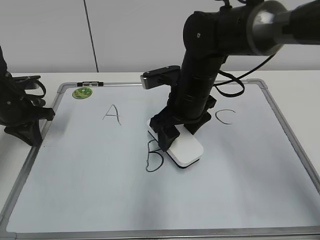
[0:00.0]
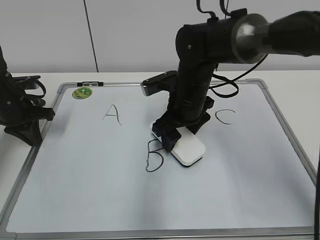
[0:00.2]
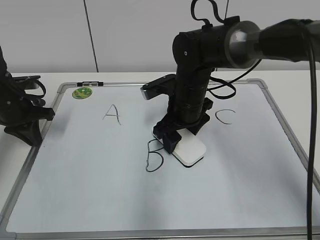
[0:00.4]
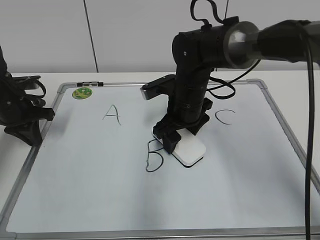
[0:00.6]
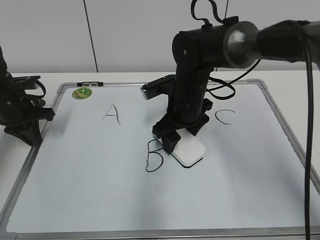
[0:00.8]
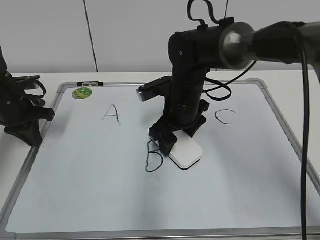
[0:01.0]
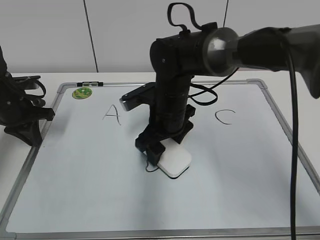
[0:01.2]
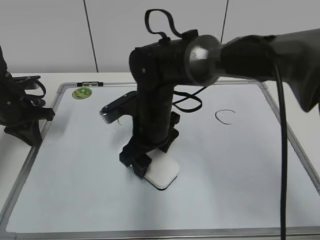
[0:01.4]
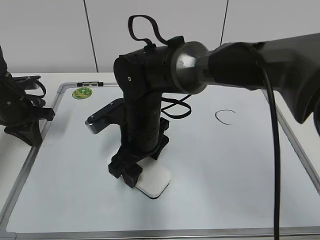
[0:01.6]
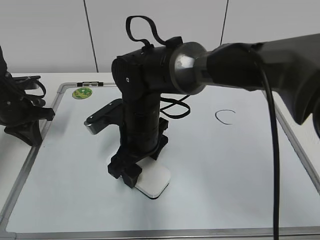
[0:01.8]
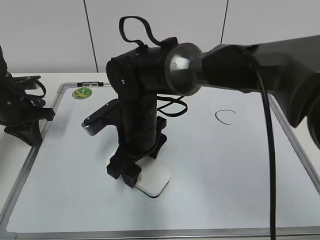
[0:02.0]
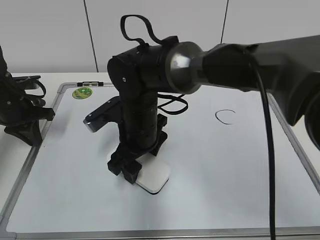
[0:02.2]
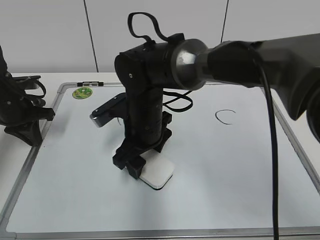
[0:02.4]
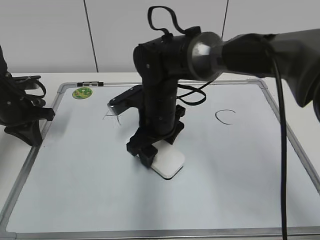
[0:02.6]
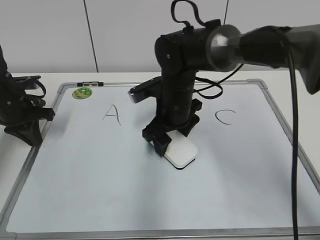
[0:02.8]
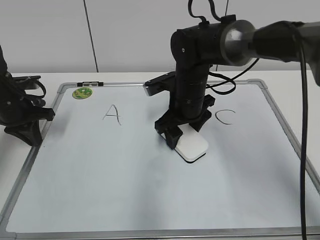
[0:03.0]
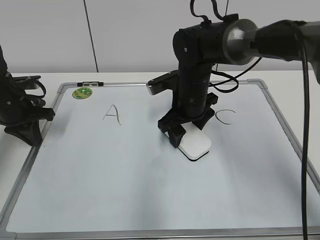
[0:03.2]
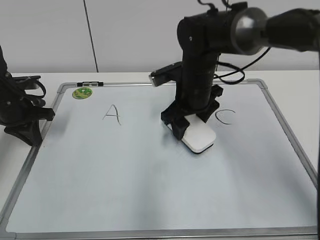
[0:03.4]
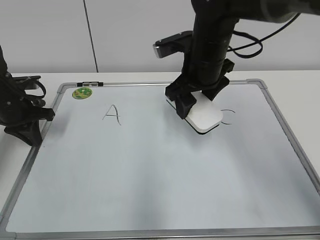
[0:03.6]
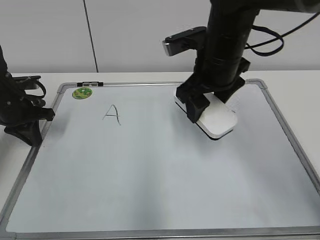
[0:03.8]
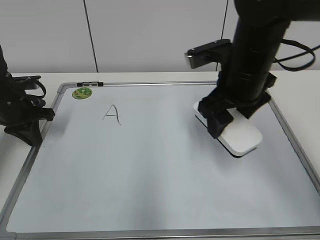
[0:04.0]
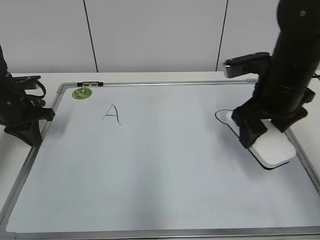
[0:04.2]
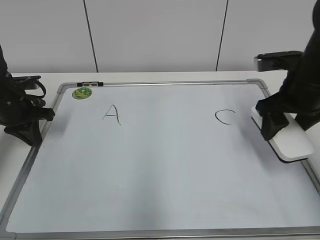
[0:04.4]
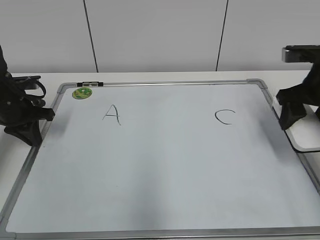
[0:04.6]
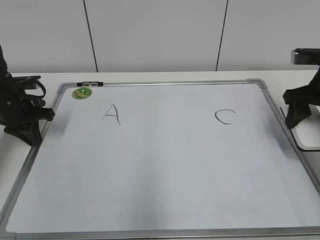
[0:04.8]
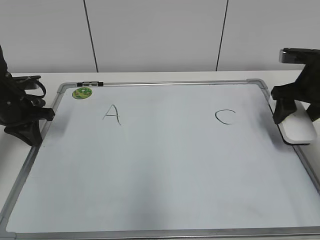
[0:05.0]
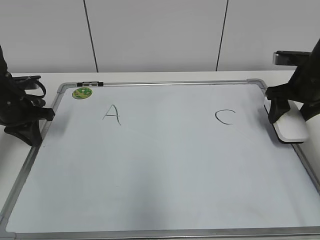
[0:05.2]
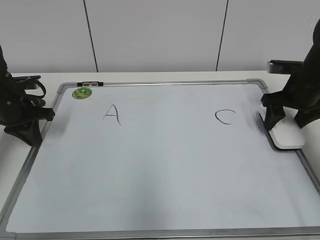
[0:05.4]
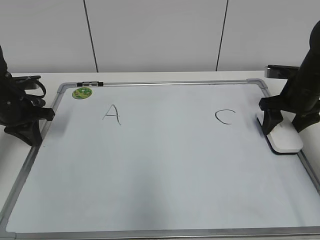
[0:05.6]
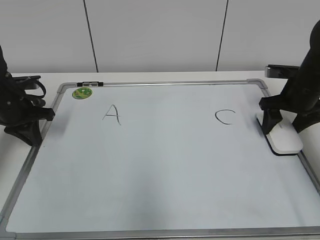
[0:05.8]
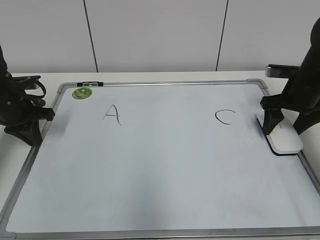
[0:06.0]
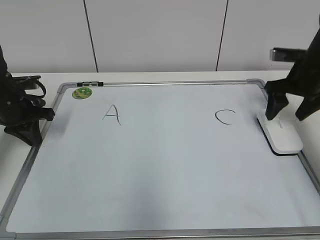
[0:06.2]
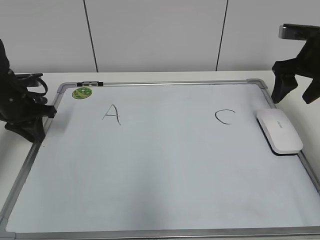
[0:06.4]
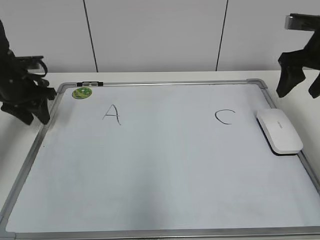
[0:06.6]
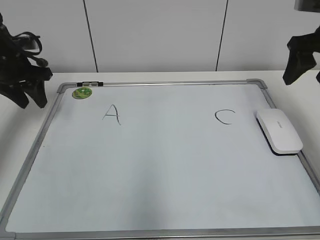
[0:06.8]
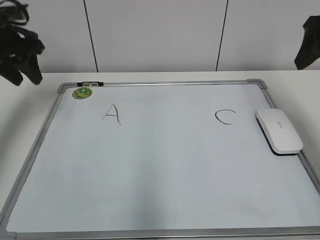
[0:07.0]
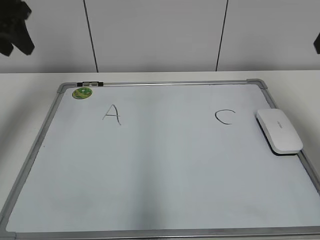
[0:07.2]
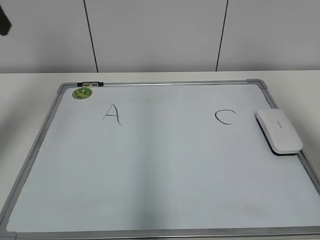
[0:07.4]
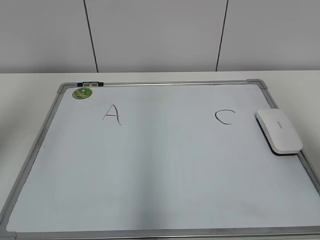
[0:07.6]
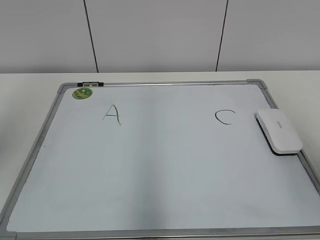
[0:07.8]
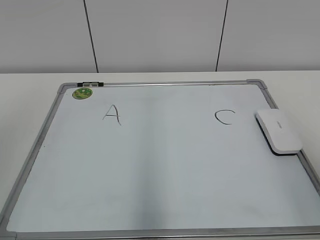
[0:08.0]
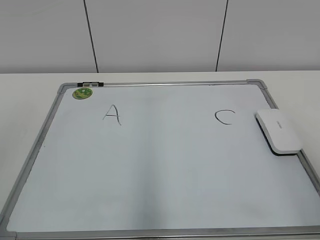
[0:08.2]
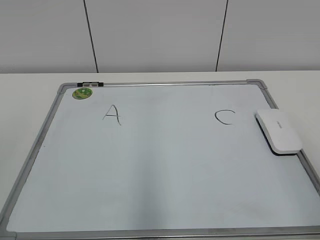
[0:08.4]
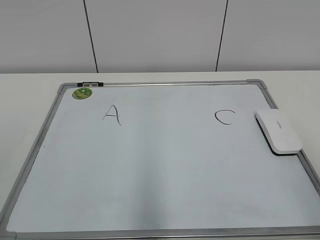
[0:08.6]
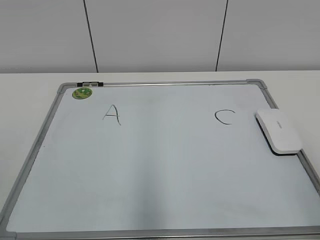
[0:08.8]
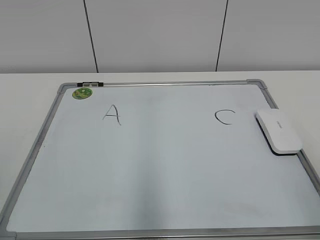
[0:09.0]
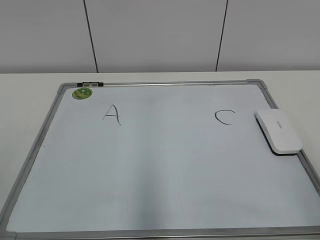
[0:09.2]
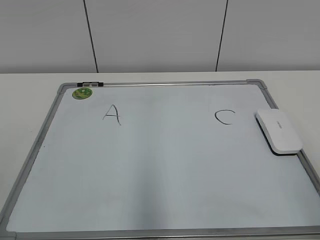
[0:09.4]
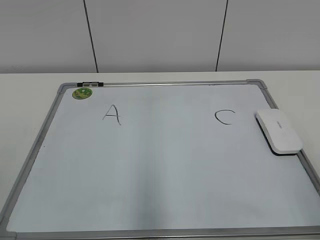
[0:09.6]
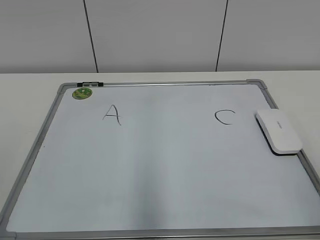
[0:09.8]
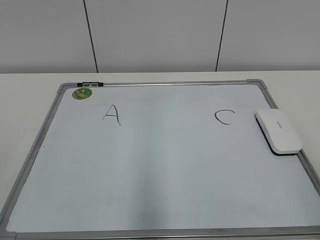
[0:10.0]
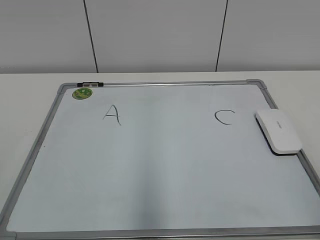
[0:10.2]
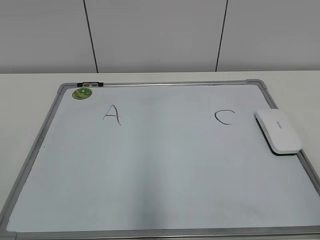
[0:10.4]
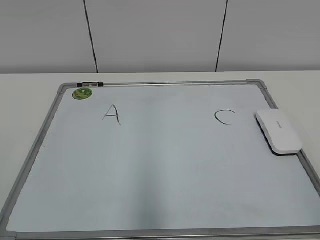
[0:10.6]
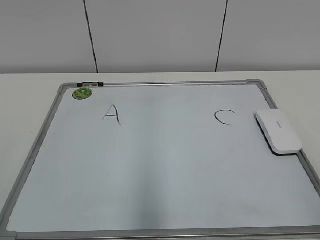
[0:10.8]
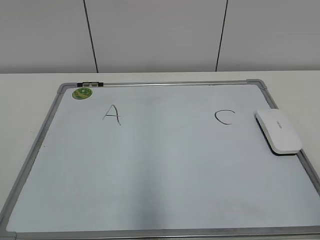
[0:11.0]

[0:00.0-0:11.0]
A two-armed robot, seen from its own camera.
Task of the whole recording: pick up the eraser on the blackboard and erase the letter "B".
Step, 0:00.0 to 0:03.0: Erase the letter B with your right hand.
Step, 0:03.2 to 0:05.6: Put down the eraser with your right hand.
0:00.0 to 0:01.6: The right gripper is displaced to the left by some 10 cm.
0:01.6 to 0:03.2: The right gripper shifts some 10 cm to the right and forward.
0:03.2 to 0:04.8: The right gripper is displaced to the right by roughly 25 cm.
0:04.8 to 0:06.2: The right gripper travels forward by some 5 cm, and opens up.
0:06.2 to 0:07.8: The right gripper goes approximately 35 cm backward and upward; the left gripper moves upward and backward, about 35 cm, and opens its fingers.

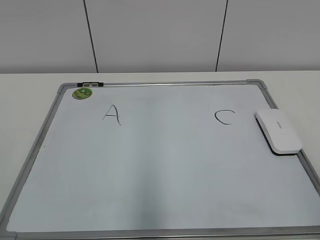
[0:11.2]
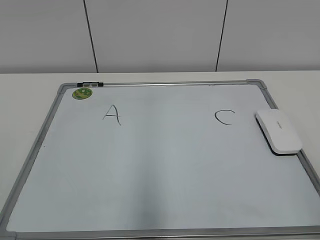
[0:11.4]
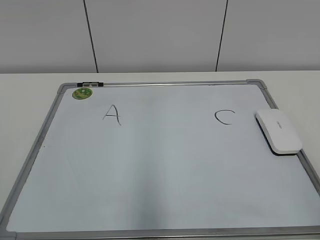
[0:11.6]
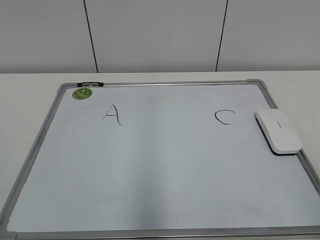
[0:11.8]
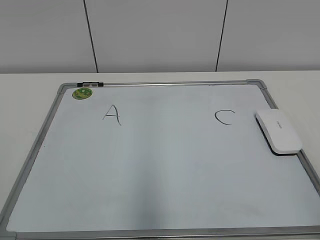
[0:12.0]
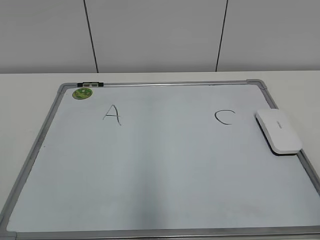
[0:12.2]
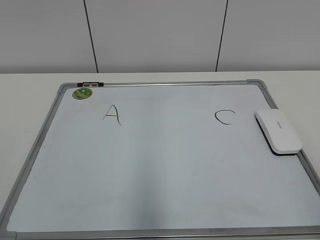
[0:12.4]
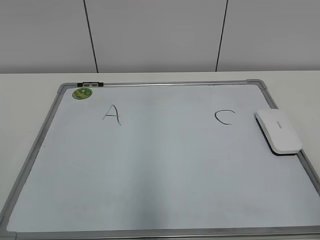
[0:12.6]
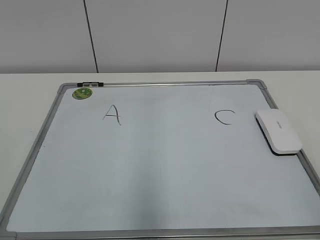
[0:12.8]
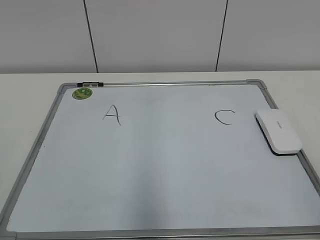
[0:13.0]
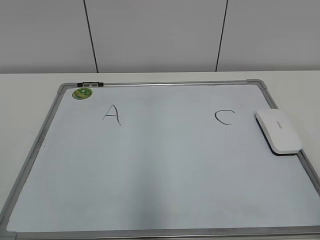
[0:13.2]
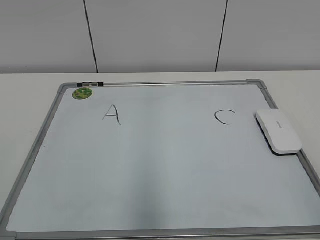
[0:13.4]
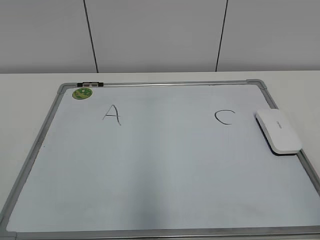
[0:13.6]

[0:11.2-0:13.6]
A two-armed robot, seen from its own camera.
Task of the whole recording: pick up the eraser on the blackboard and erase the letter "B".
0:11.2 to 0:13.6: Both grippers stay about where they are.
